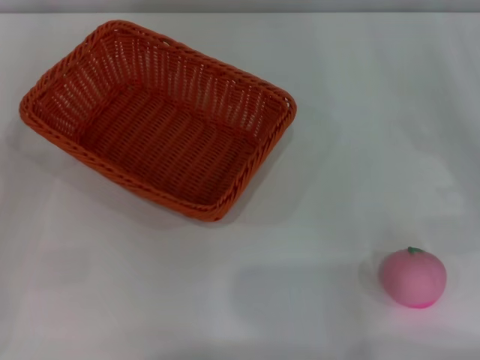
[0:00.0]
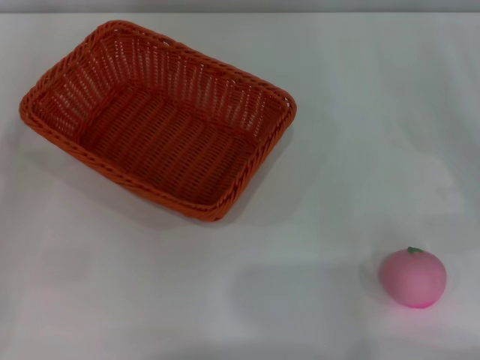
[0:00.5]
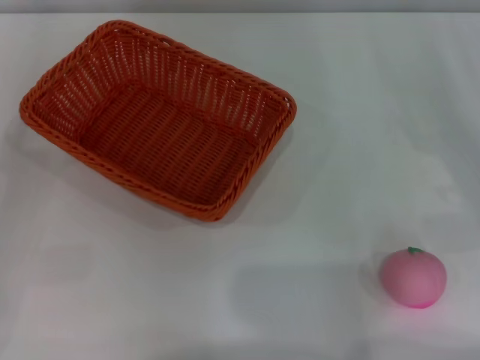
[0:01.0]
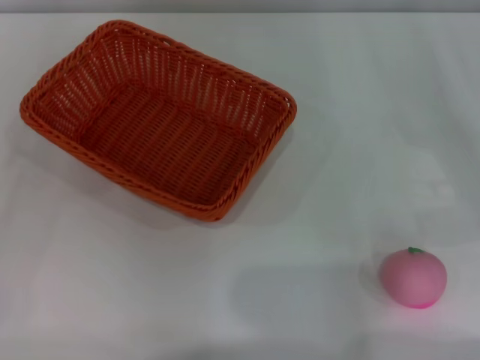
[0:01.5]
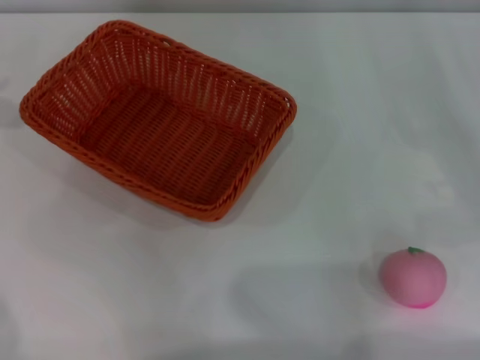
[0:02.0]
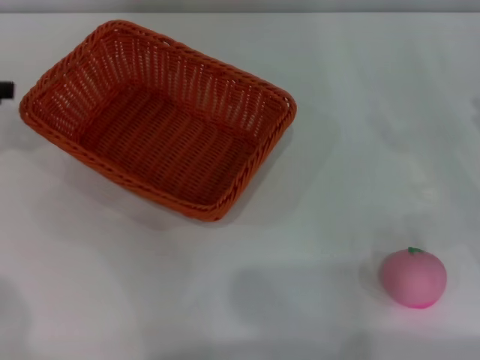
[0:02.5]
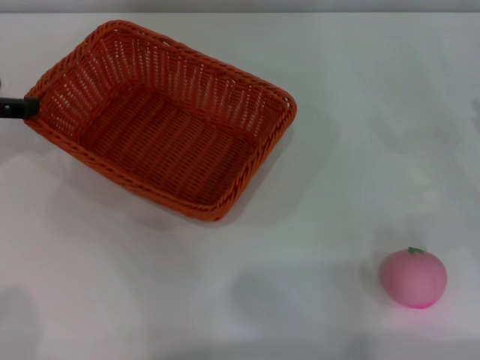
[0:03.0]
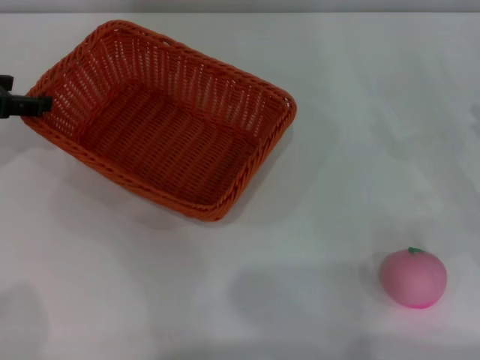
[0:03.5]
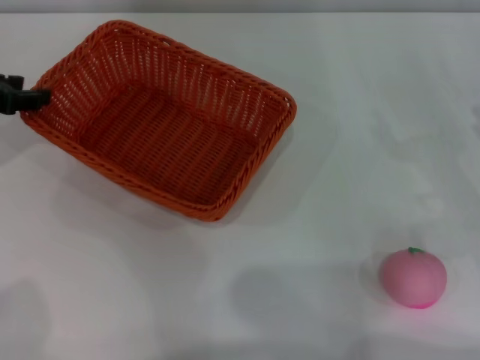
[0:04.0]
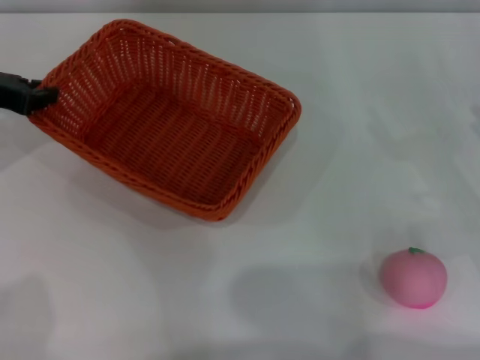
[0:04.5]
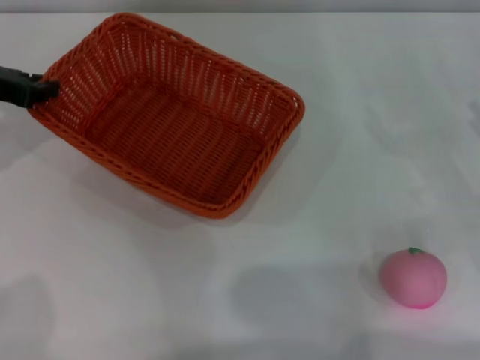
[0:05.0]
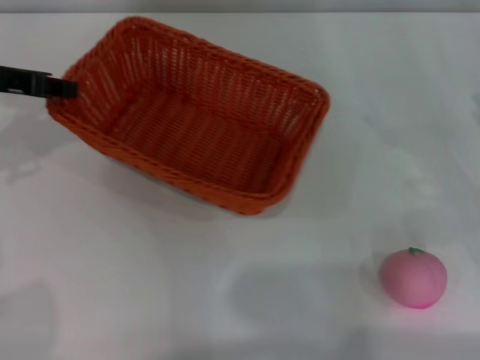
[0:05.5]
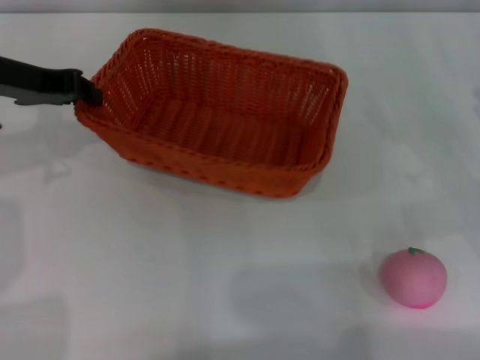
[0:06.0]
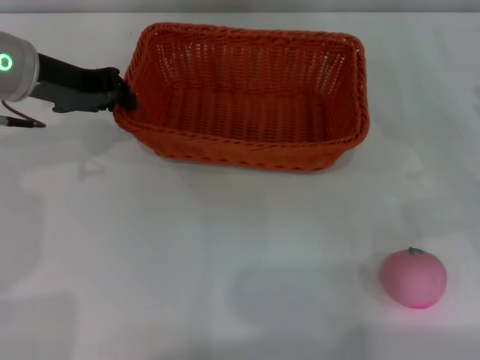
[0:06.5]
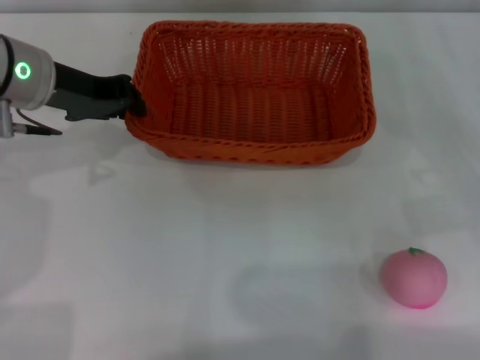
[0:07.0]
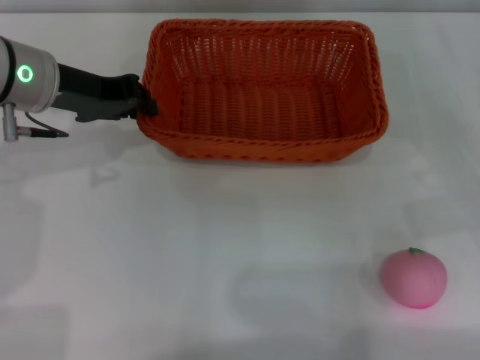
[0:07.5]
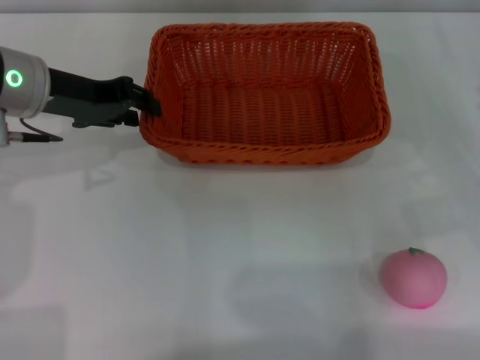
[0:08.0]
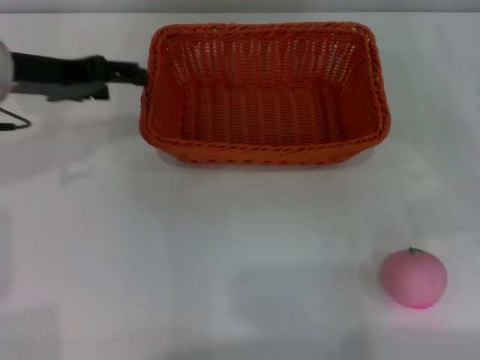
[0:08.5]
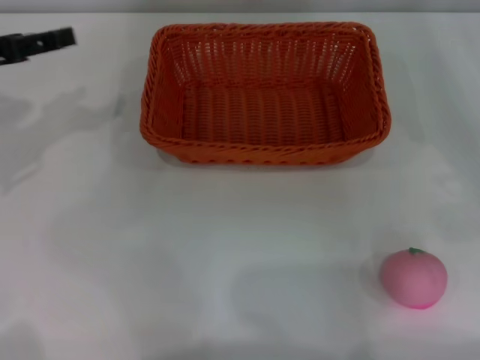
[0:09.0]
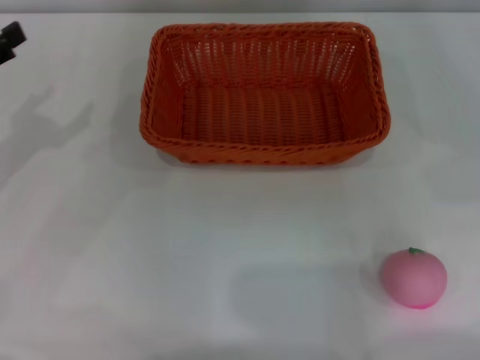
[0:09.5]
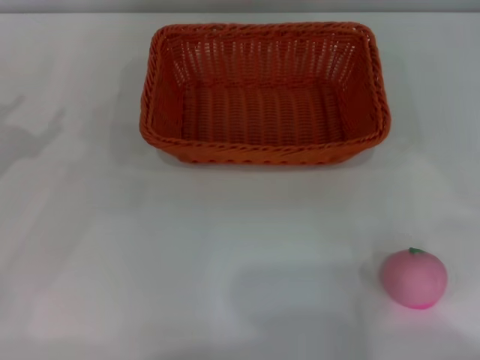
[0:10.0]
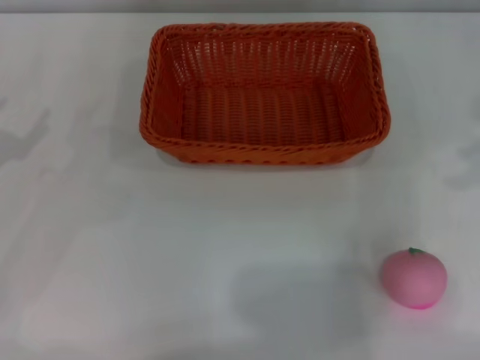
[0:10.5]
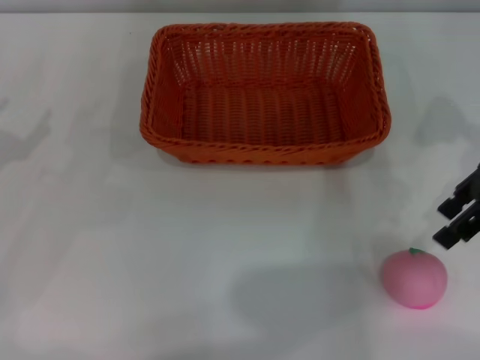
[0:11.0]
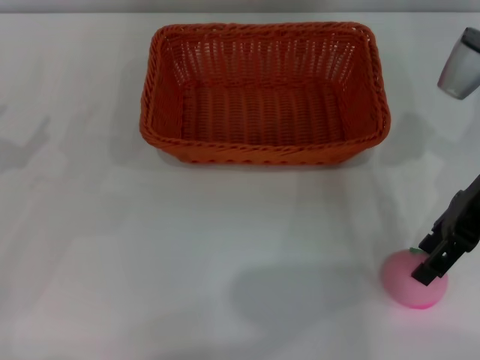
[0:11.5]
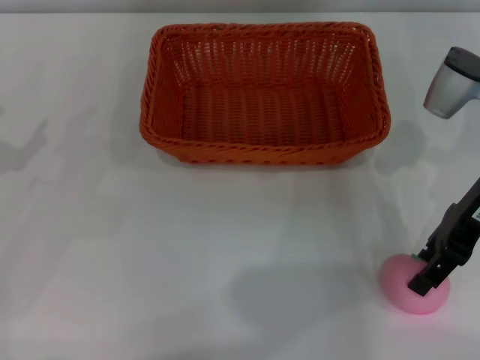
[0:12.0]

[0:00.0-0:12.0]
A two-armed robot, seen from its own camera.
Step, 0:00.0 to 0:05.0: Pick up the light basket with the left gripper.
Step, 0:05.5 to 0:08.5: Place the light basket in the center of view with the right gripper.
0:02.0 to 0:04.0: The left gripper heads downward and to the right, covering about 10 cm.
0:04.0 to 0:06.0: The left gripper moves to the right, some 10 cm, and closes.
0:06.0 to 0:08.0: The grippers stay close to where they were, moving slightly.
0:08.0 to 0:10.0: The left gripper goes some 15 cm to the left and backward, and opens.
0:10.0 to 0:12.0: The right gripper travels to the left and downward by approximately 25 cm.

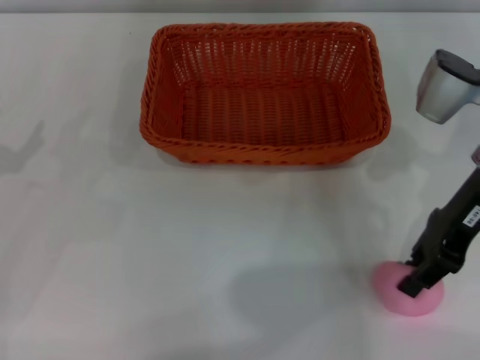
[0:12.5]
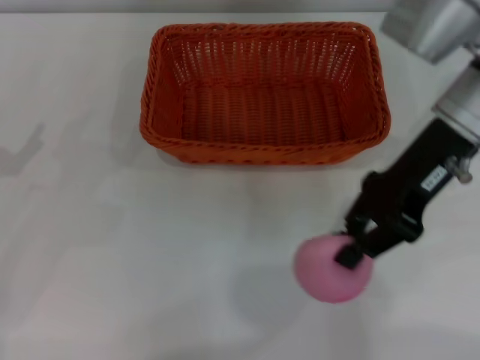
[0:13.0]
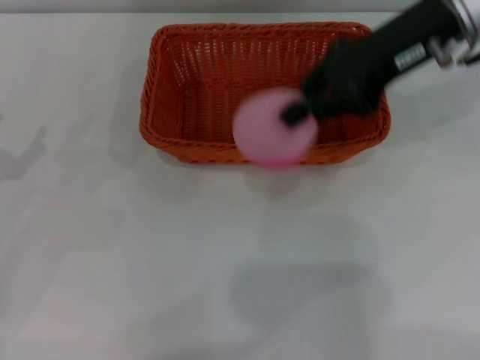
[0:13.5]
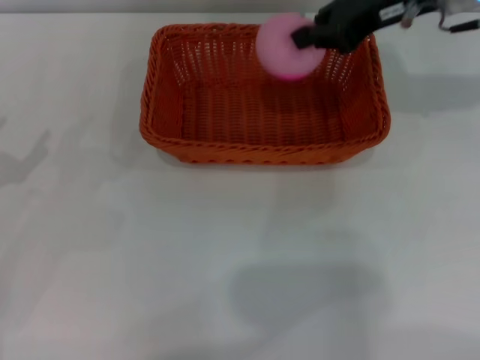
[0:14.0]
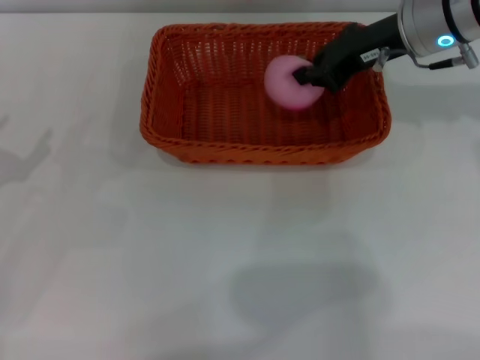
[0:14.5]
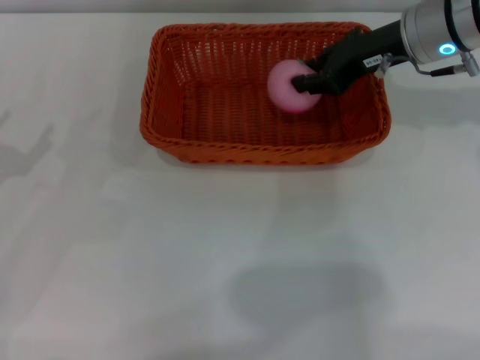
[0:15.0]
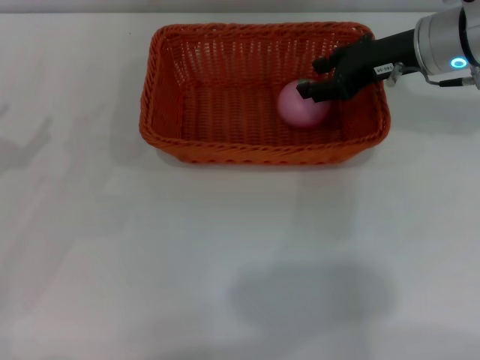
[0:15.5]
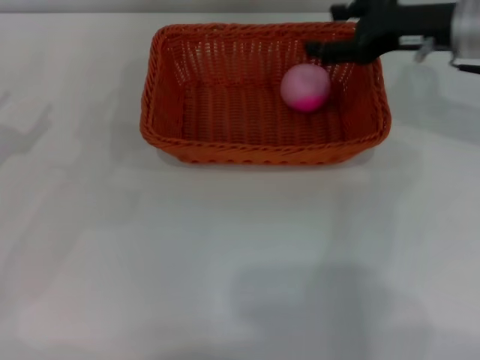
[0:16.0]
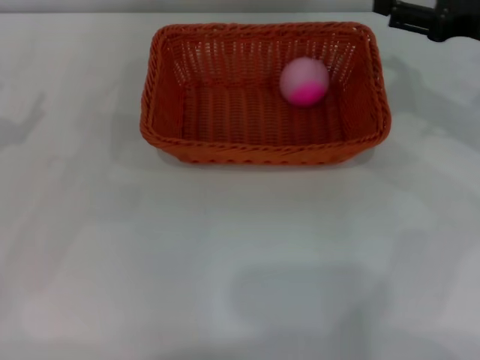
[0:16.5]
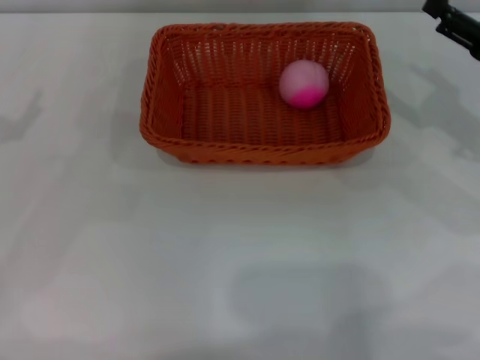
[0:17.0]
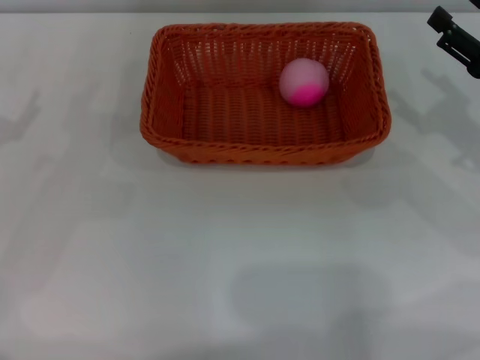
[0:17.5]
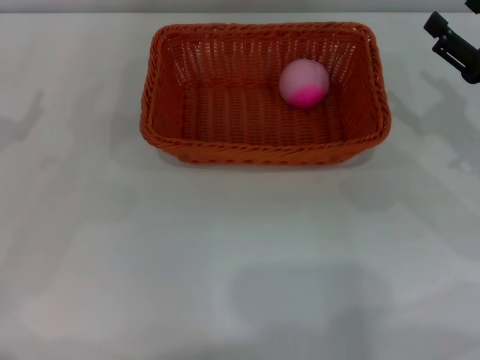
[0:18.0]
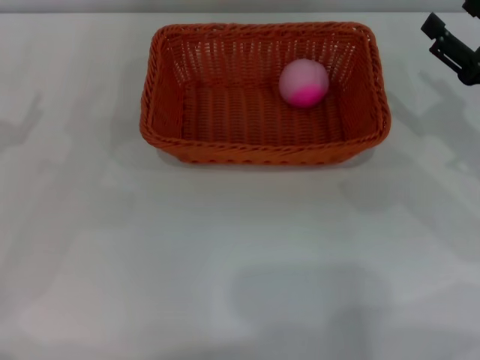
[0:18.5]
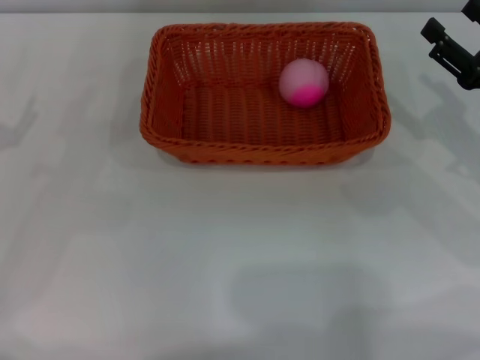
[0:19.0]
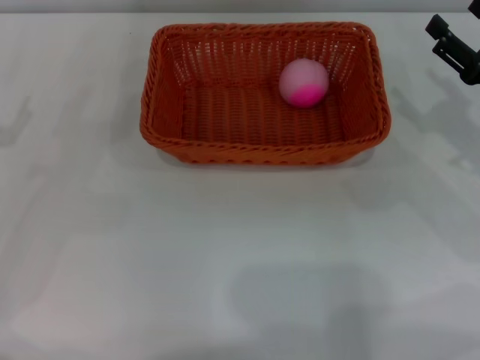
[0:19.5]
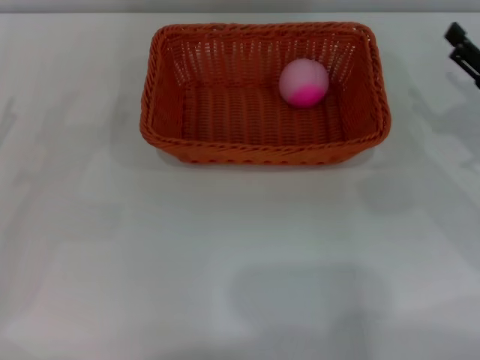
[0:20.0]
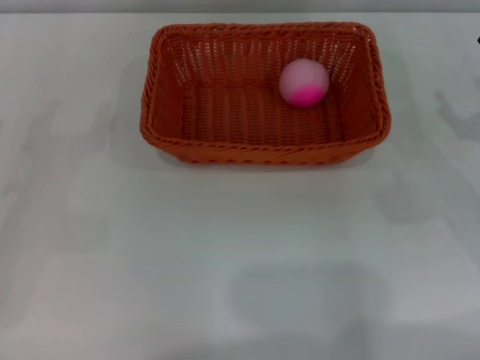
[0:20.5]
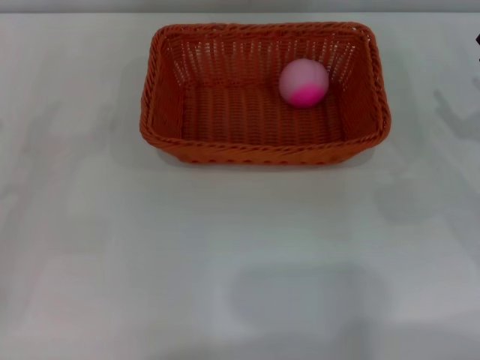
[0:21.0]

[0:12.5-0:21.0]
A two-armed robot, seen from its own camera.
Step, 0:13.5 to 0:16.5: Place the peach into the basket with the left gripper.
0:12.5 to 0:14.5: The right gripper moves forward, roughly 10 cm, moves about 10 cm upward and comes back, and closes.
0:14.5 to 0:16.5: The right gripper travels to the right and backward by approximately 15 cm, and opens.
0:16.5 to 0:19.0: The right gripper goes some 10 cm downward and backward.
0:19.0 to 0:21.0: The grippers stay close to where they were, moving slightly.
